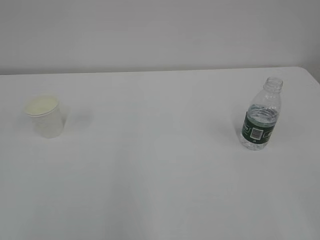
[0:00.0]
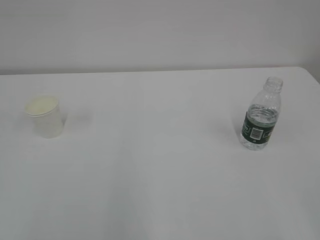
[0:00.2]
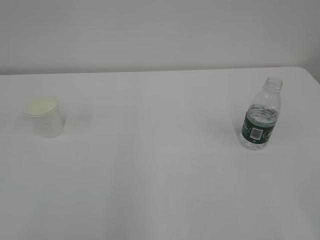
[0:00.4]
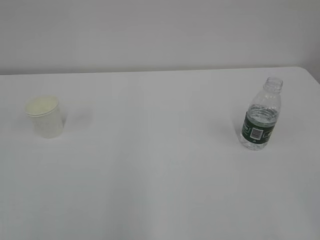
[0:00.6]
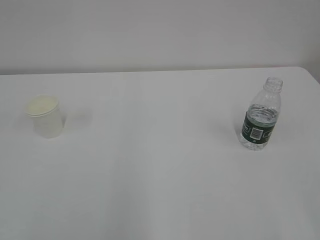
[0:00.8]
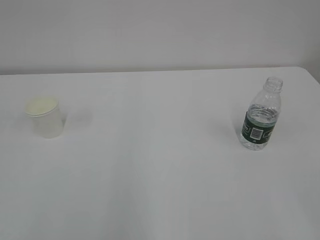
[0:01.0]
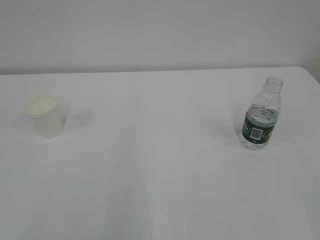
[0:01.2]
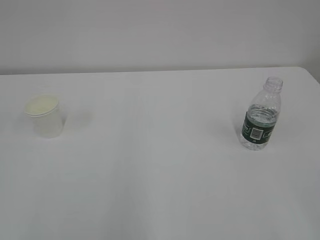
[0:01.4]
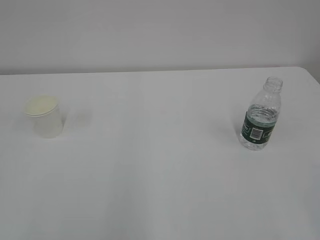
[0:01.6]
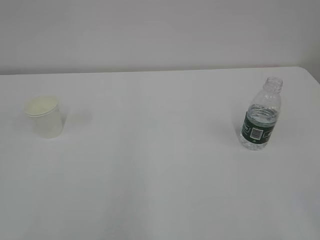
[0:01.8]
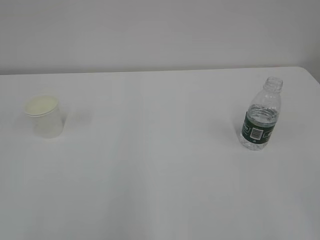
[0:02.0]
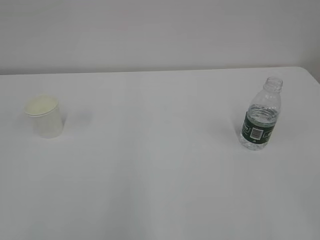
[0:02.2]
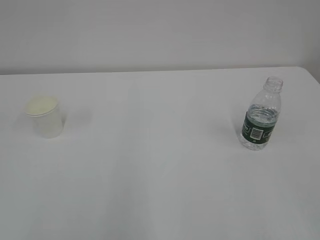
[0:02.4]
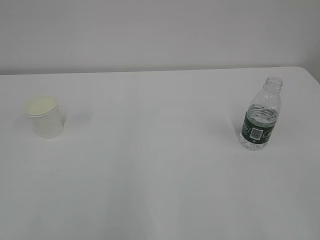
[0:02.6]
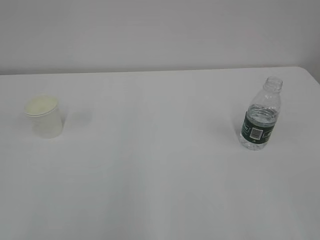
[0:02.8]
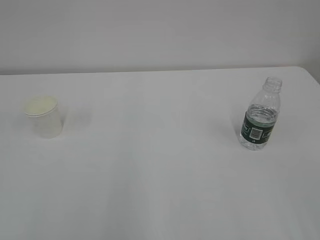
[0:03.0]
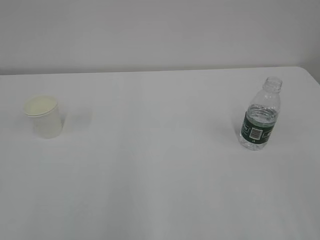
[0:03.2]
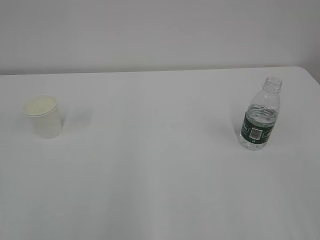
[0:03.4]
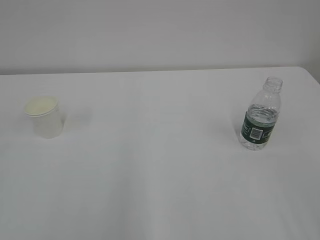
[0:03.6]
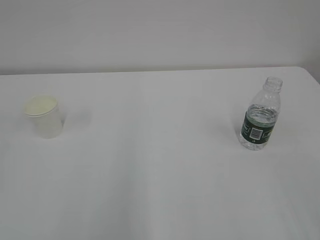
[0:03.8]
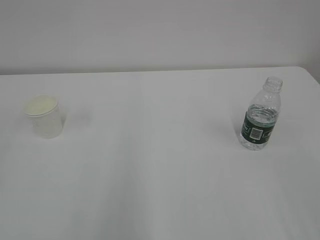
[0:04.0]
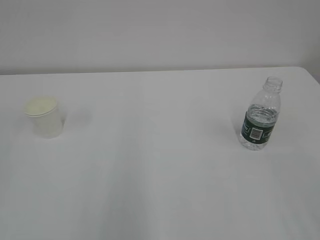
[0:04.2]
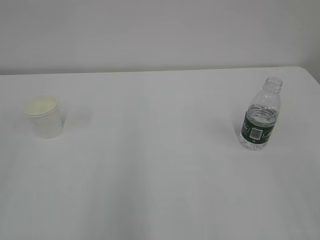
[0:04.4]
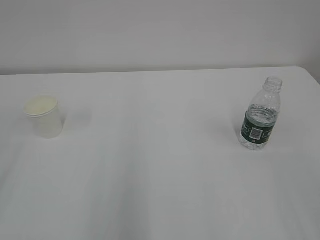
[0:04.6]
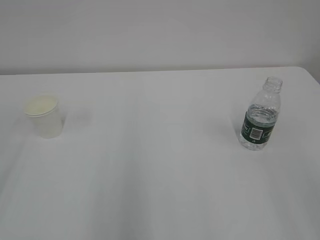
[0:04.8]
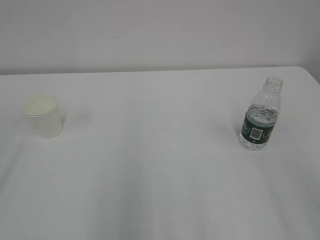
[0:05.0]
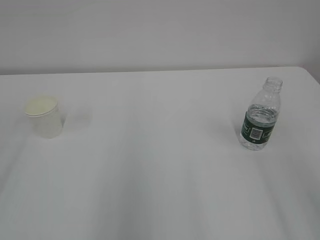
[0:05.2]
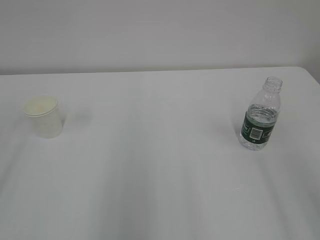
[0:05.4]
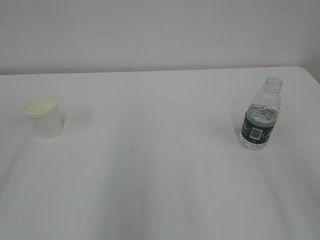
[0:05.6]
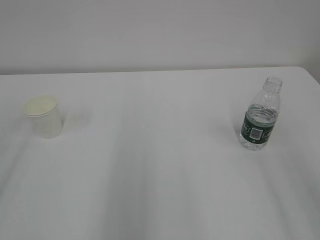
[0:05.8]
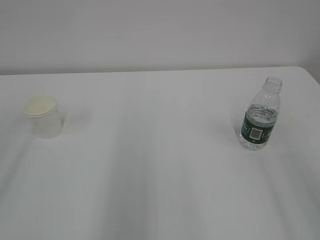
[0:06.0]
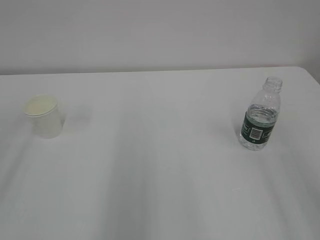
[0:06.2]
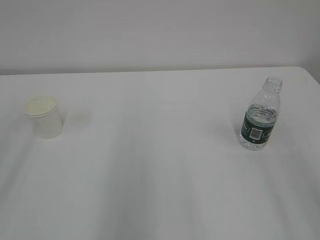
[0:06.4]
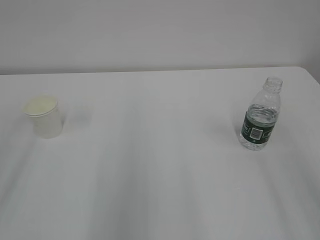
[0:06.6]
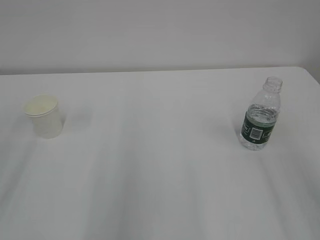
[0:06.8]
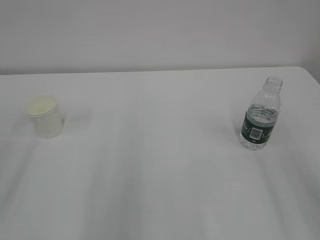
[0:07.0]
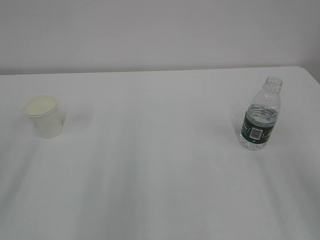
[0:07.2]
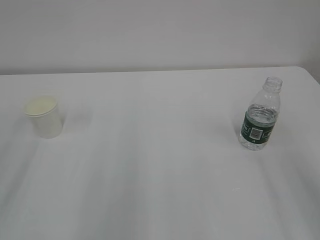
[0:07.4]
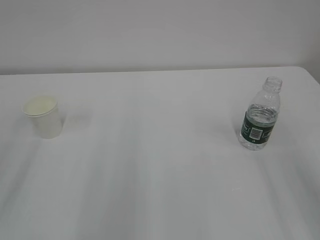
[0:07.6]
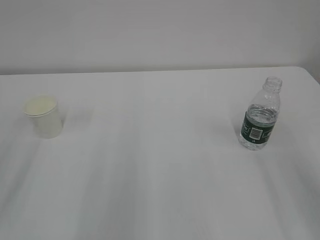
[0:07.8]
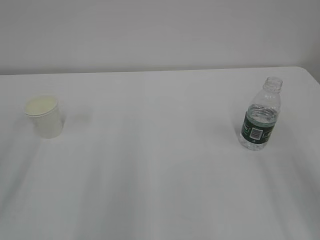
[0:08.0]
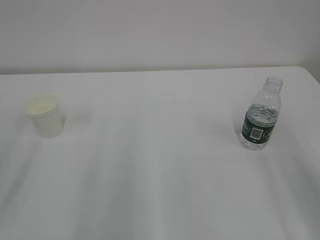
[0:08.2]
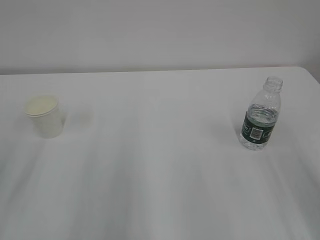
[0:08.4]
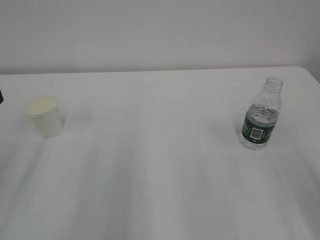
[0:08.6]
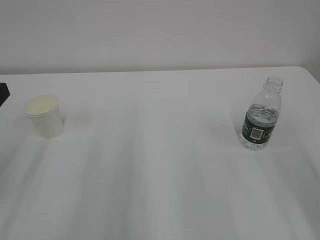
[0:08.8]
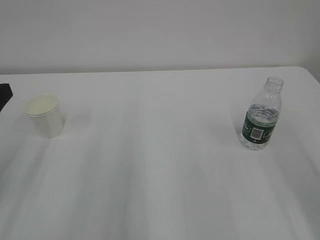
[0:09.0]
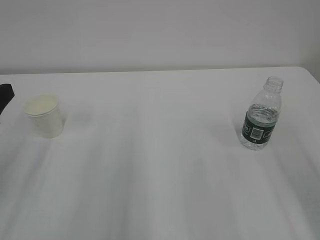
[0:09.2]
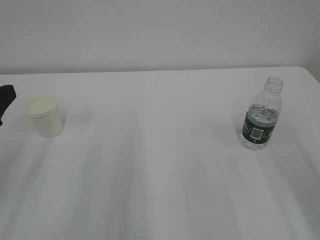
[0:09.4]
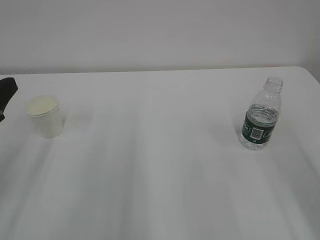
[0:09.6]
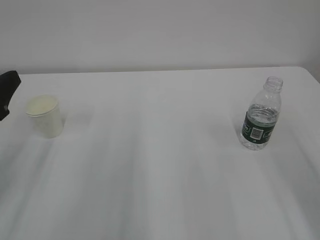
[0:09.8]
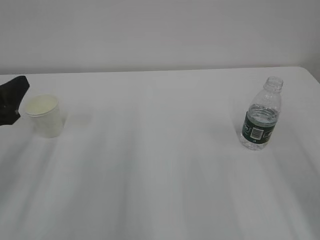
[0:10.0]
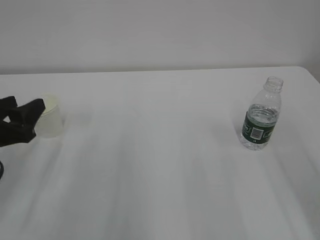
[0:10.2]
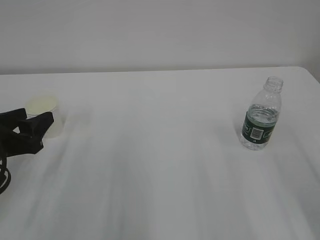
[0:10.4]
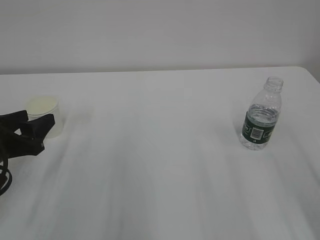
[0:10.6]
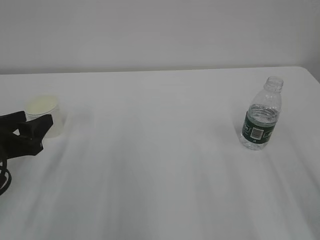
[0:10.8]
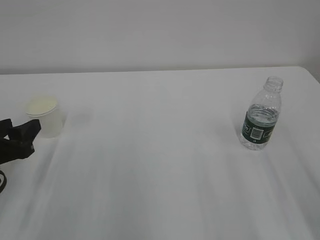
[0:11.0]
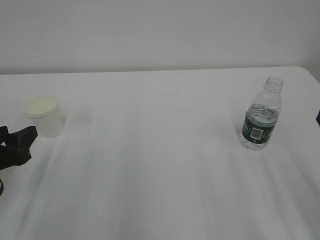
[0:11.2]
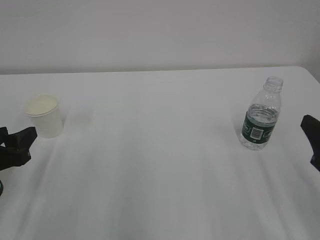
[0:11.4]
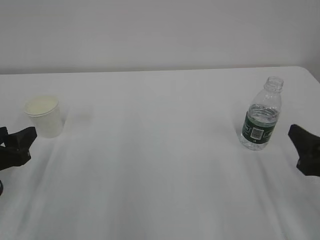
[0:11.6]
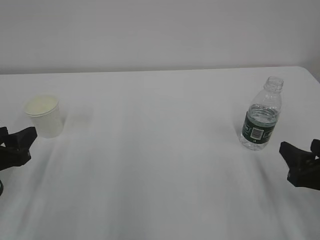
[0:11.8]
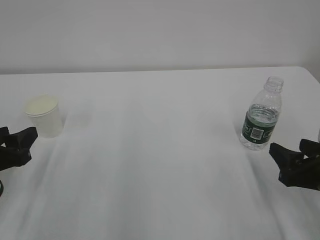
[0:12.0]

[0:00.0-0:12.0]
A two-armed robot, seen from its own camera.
0:09.0 to 0:10.4: The left gripper goes roughly 10 cm downward.
0:10.4 to 0:12.0: The right gripper travels downward and forward by some 15 cm.

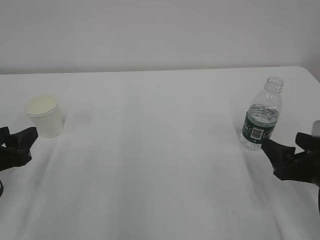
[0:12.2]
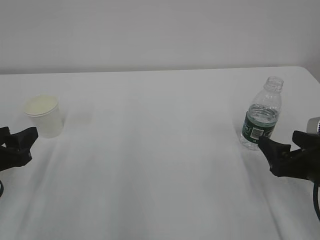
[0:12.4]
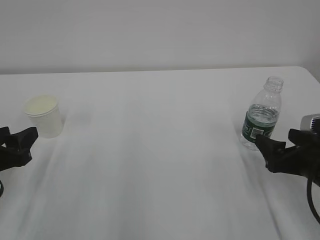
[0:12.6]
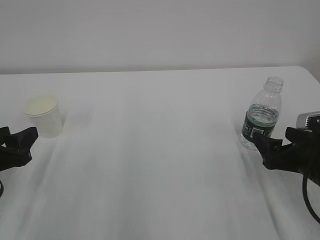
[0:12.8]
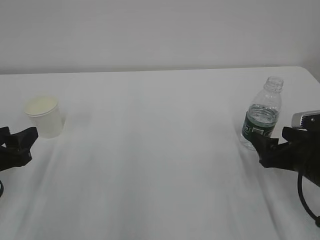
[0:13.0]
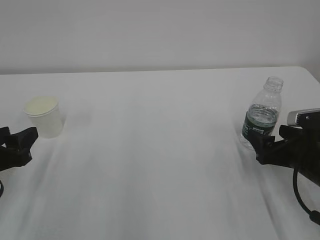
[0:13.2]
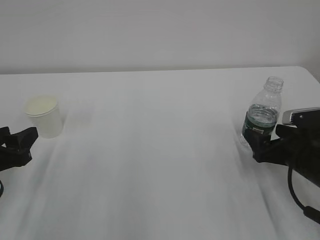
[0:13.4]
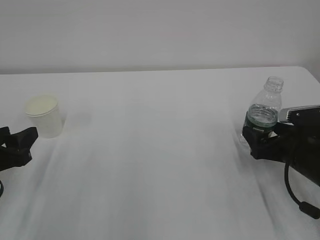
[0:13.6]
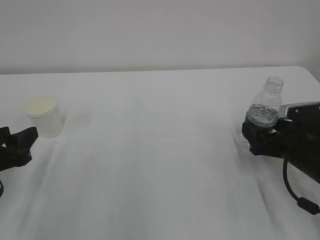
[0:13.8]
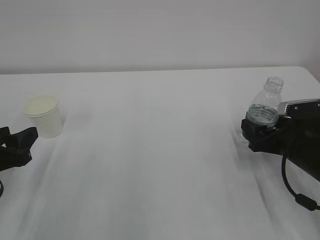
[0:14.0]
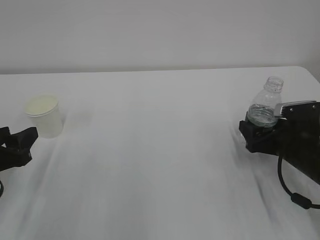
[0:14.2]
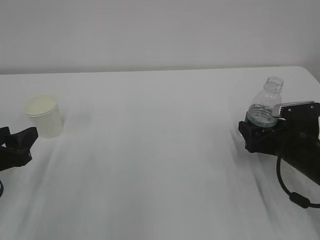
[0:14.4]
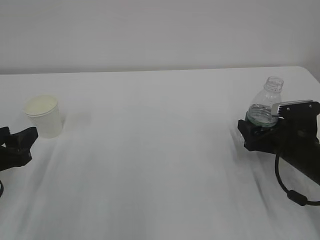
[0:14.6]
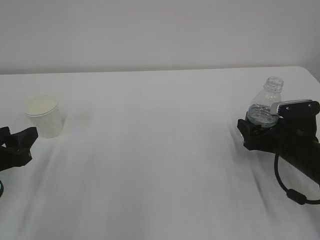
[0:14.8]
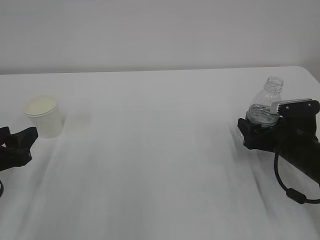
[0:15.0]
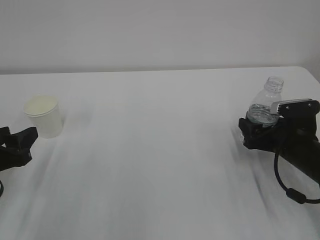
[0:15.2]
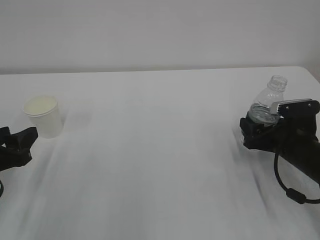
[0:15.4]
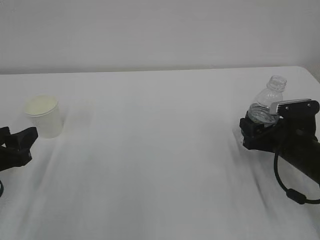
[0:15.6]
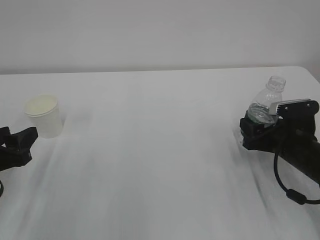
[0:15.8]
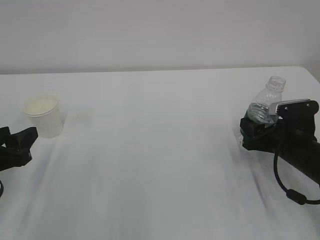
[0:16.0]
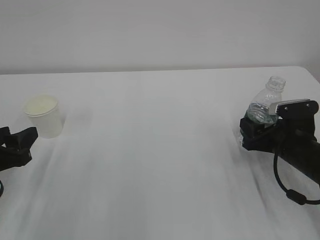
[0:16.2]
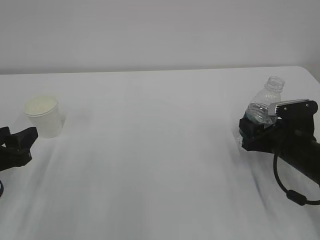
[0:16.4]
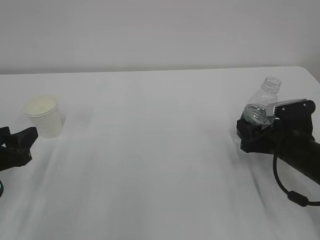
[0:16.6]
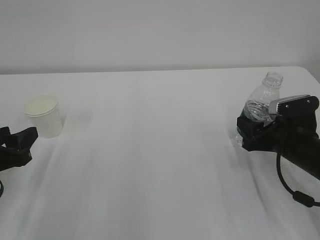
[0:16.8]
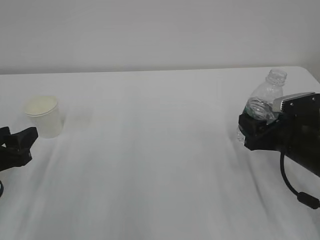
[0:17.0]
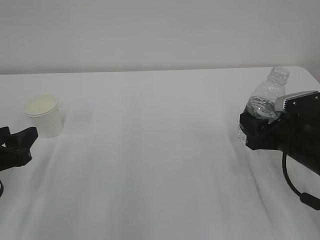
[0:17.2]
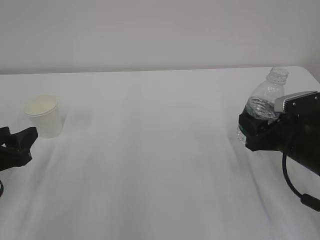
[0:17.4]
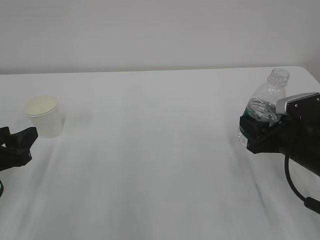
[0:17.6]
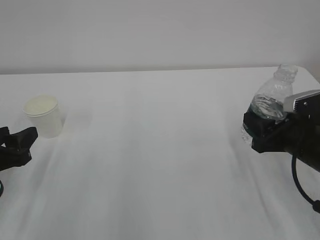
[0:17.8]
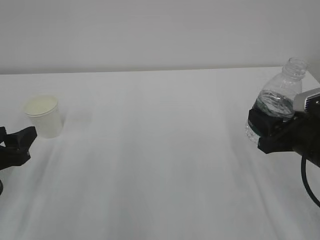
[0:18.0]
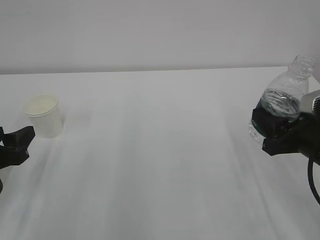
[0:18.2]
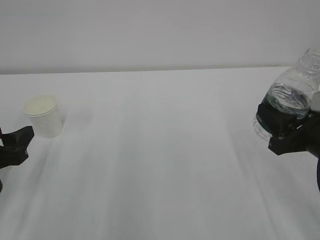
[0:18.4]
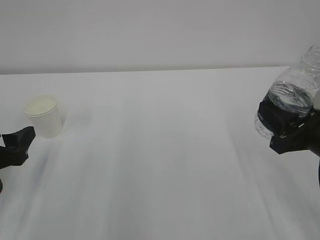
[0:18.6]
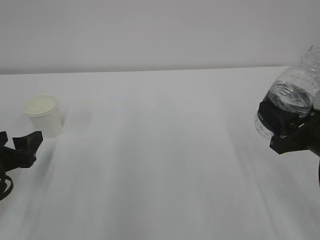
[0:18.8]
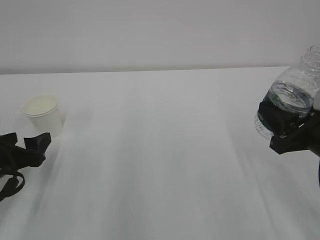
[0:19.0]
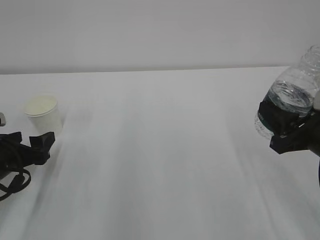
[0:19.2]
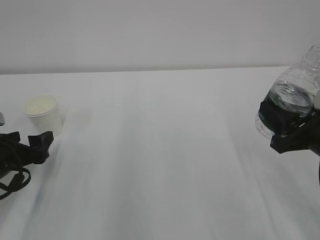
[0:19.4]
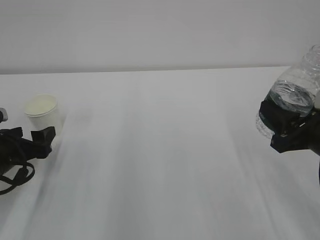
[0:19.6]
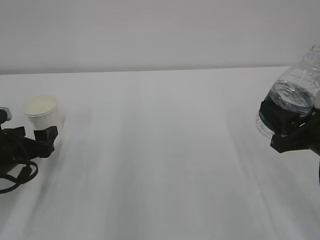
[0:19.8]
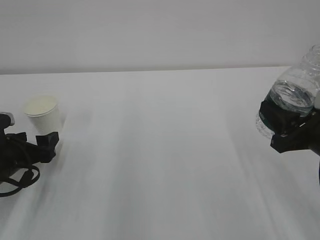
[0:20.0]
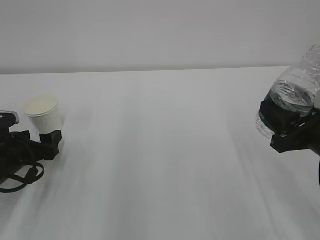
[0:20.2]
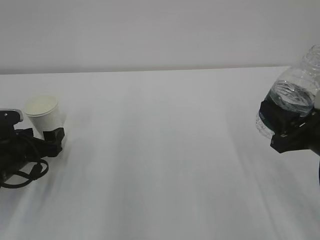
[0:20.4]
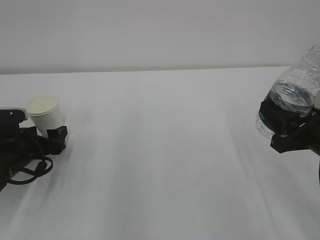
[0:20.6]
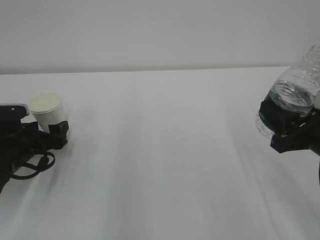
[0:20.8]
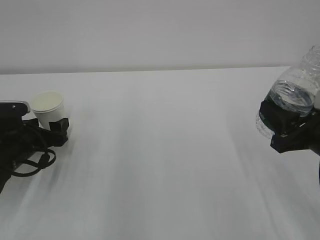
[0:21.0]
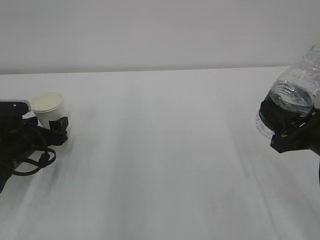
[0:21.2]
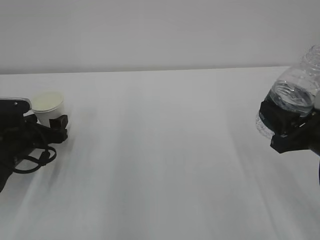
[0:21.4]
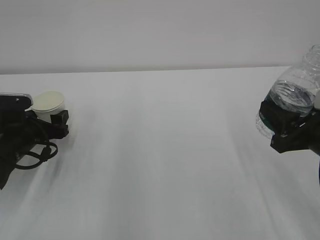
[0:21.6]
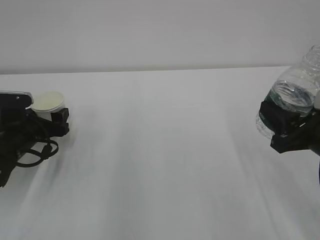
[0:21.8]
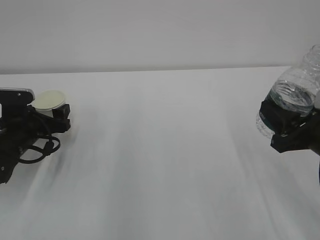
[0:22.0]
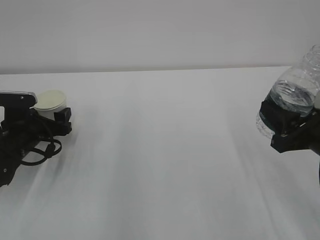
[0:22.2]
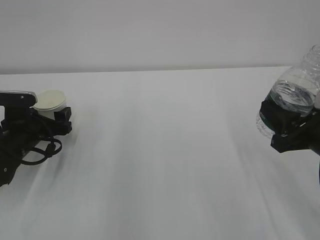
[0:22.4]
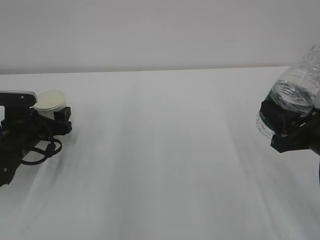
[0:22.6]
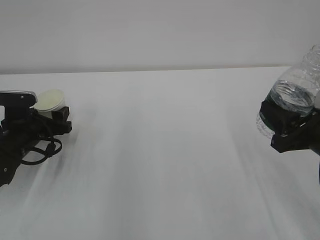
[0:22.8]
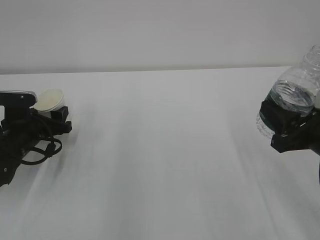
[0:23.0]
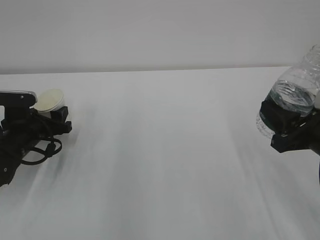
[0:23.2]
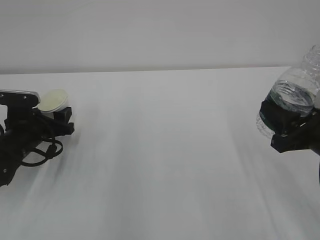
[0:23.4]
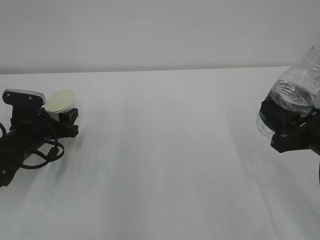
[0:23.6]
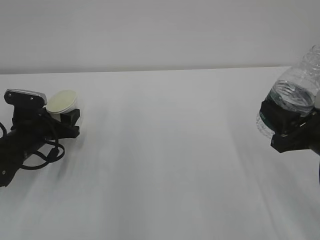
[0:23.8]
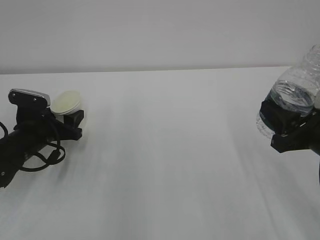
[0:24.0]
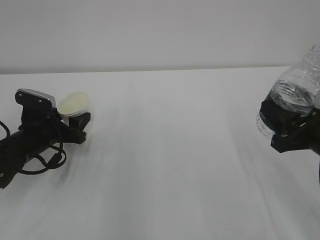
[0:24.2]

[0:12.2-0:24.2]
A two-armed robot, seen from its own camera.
0:12.2 to 0:13.8: The right gripper moves forward, about 5 cm.
0:13.8 to 0:15.2: The grippers stay close to where they were, moving slightly.
0:15.2 to 0:16.6: The right gripper closes.
0:16.6 to 0:18.2: The right gripper moves upward and backward, approximately 10 cm.
0:18.2 to 0:19.8: The left gripper goes about 5 cm forward, and opens.
0:19.8 to 0:21.2: The left gripper changes place by approximately 5 cm.
0:21.2 to 0:22.6: The grippers make only small movements.
0:22.6 to 0:24.2: The left gripper closes up.
